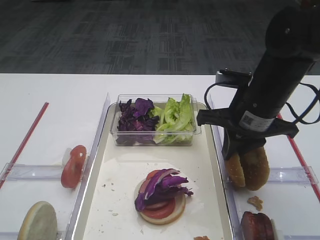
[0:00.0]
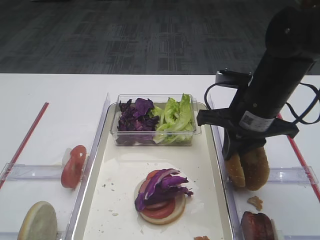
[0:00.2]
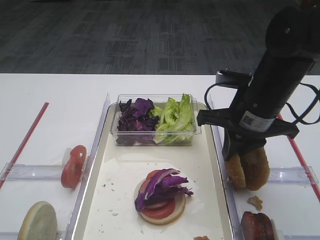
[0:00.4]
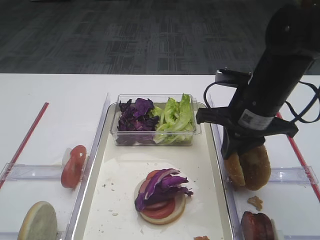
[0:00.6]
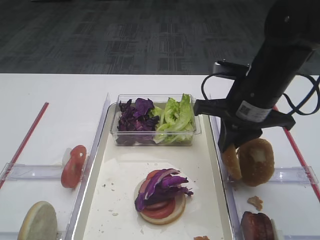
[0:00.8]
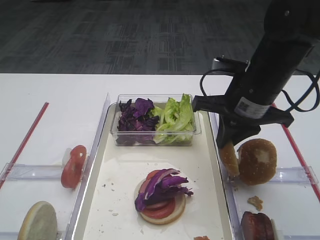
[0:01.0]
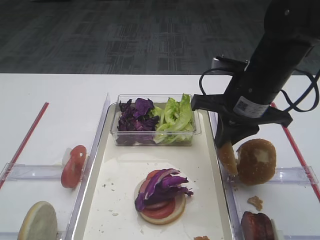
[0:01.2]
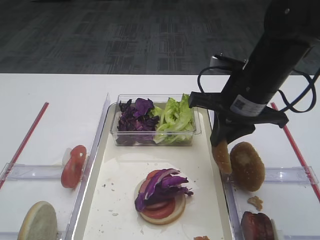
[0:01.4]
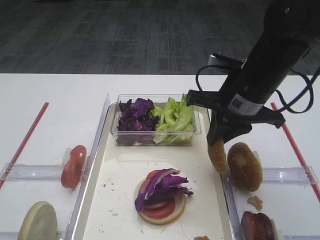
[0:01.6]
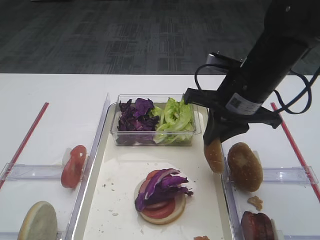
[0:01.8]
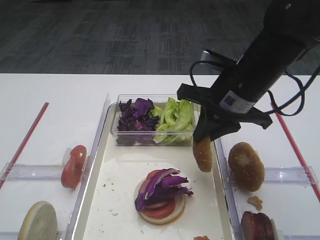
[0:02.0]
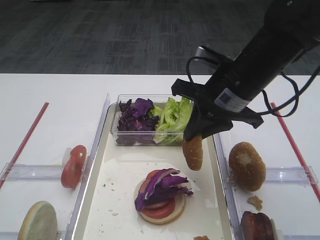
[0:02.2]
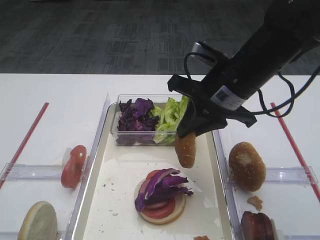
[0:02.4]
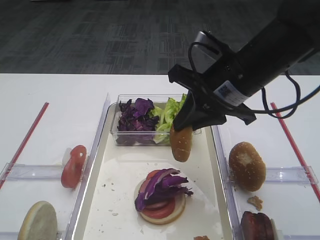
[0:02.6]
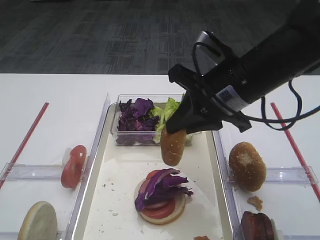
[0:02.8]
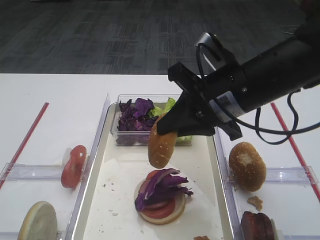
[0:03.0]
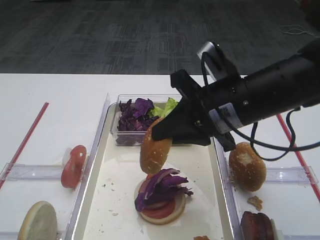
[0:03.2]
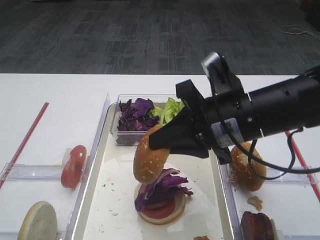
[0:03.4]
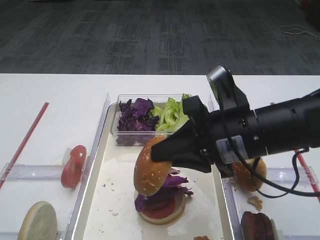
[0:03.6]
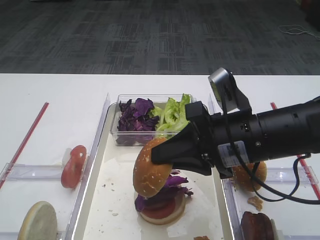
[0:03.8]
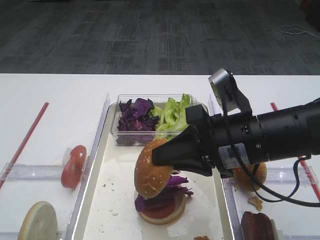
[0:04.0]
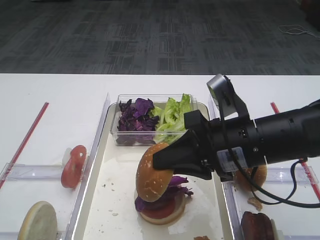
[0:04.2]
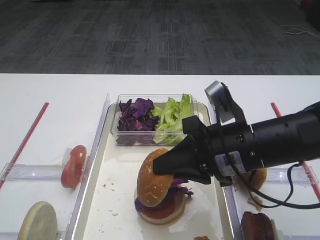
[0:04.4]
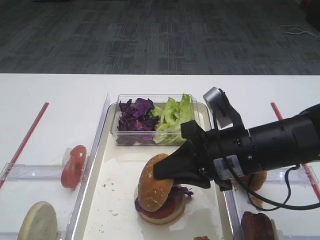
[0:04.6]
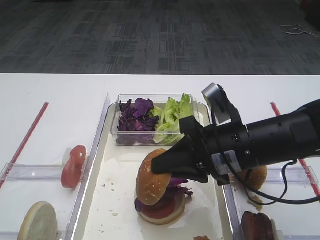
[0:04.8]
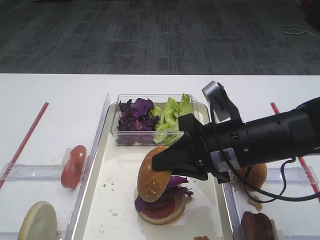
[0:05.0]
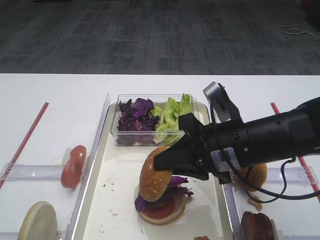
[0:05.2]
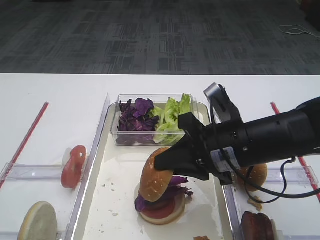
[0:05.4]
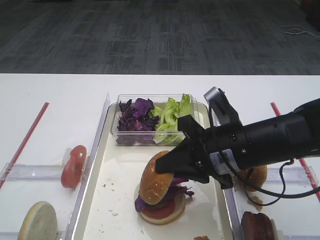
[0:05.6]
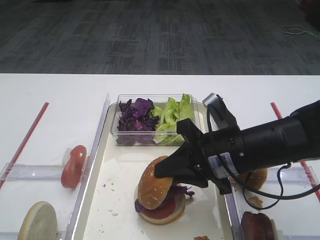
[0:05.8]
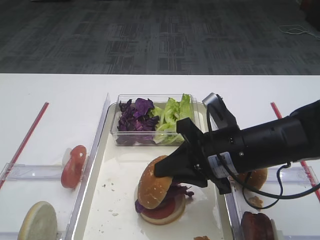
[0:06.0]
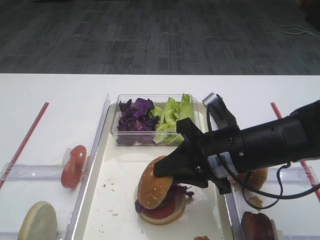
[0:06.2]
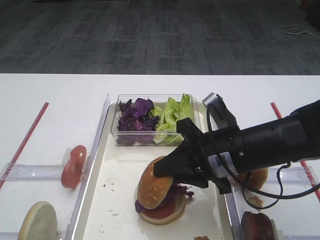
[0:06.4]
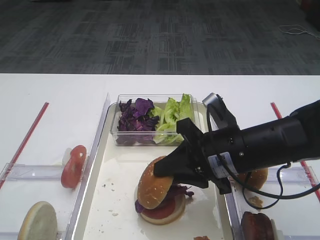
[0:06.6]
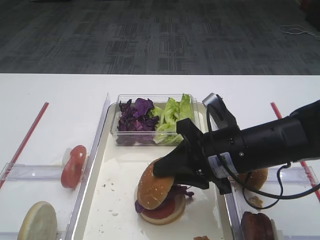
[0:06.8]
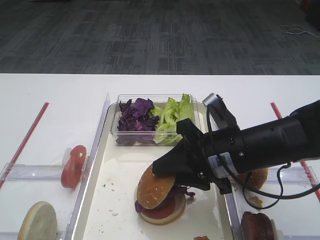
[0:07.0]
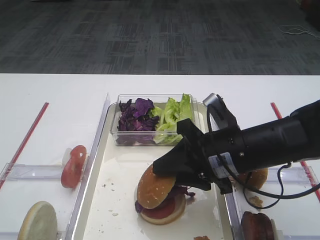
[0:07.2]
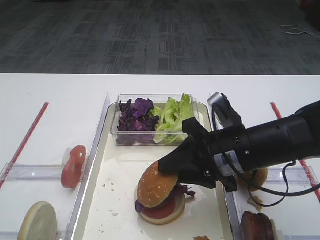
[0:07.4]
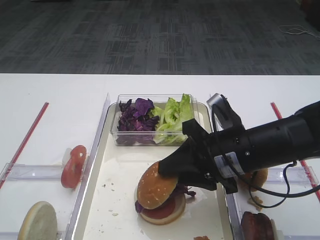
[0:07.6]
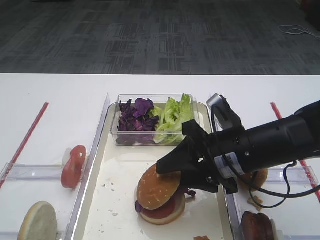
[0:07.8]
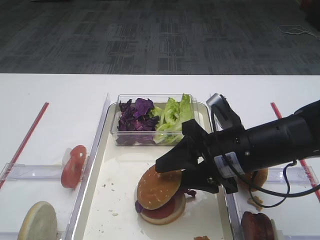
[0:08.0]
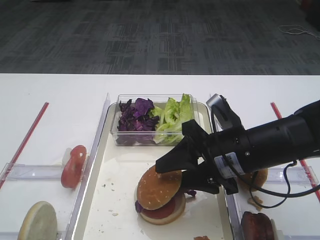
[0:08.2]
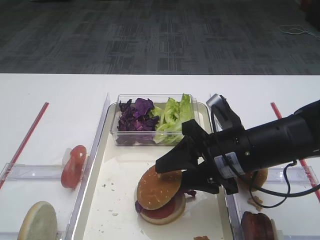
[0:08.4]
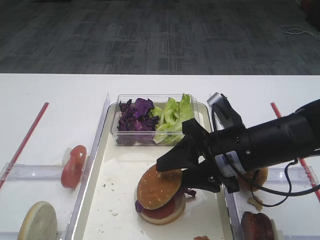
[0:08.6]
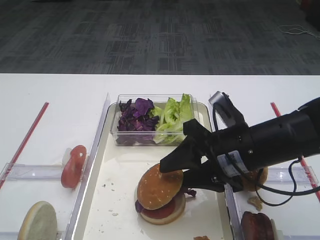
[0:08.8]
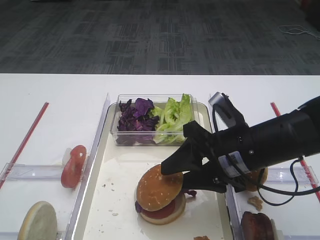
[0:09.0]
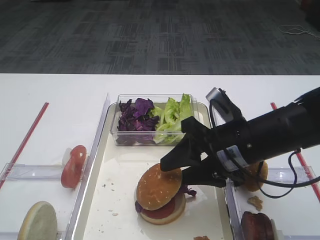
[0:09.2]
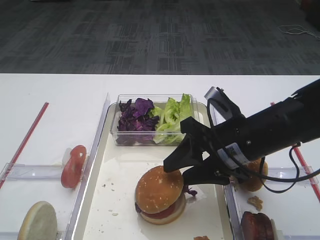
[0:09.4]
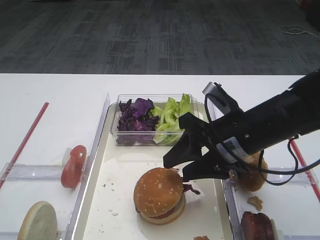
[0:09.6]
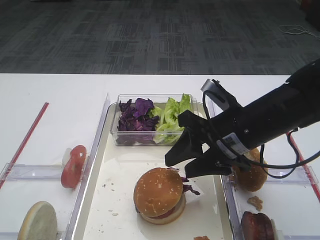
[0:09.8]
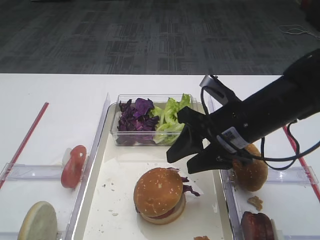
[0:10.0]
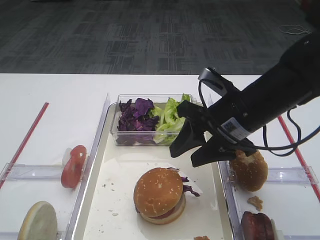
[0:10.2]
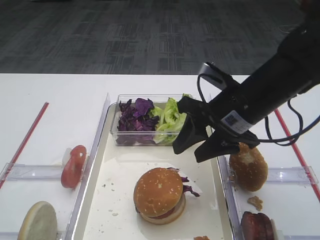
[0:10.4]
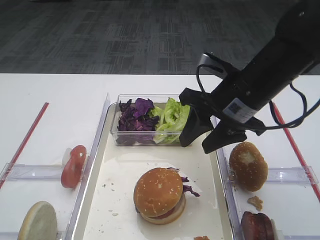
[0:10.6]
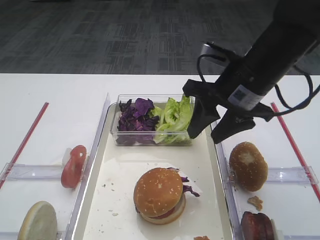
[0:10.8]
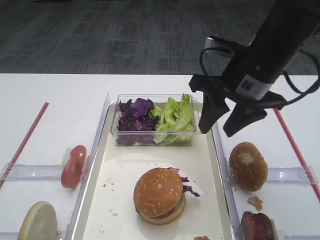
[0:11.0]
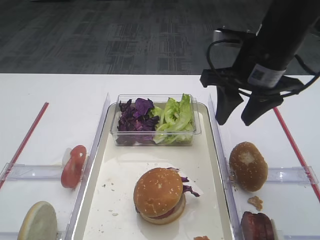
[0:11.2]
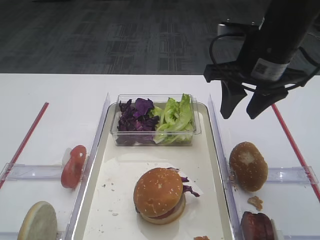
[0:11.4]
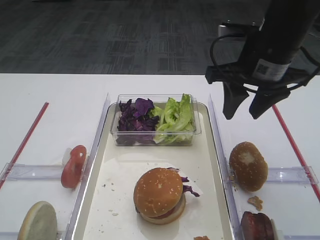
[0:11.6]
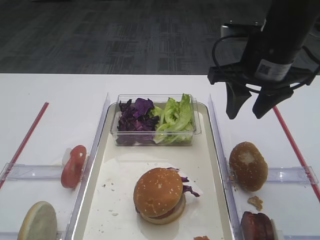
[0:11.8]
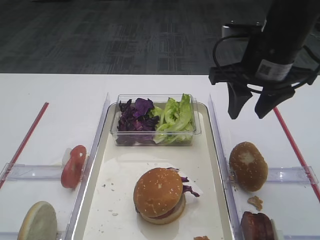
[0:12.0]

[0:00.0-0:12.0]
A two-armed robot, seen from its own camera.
Step, 0:01.8 to 0:10.0: Place the hamburger lid on the purple cabbage with the right gripper.
0:00.0 to 0:01.6: The grippers stay close to where they were, moving slightly.
0:01.6 to 0:03.0: The right gripper moves about 5 cm.
0:03.0 to 0:04.4: The right gripper is displaced downward by about 5 cm.
0:04.4 to 0:06.0: The grippers stay close to where they were, moving slightly.
0:06.0 to 0:07.6: The two grippers keep their place.
0:07.6 to 0:09.0: Both grippers stay about where they are.
0:09.0 to 0:10.4: The right gripper moves approximately 5 cm.
0:10.4 to 0:12.0: The right gripper travels upward by some 5 cm.

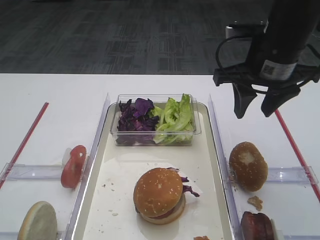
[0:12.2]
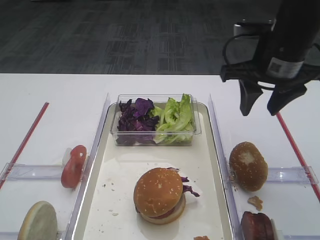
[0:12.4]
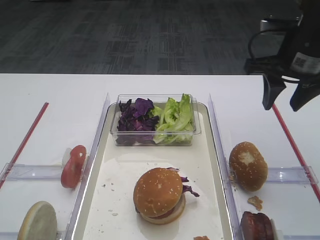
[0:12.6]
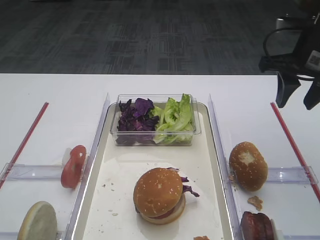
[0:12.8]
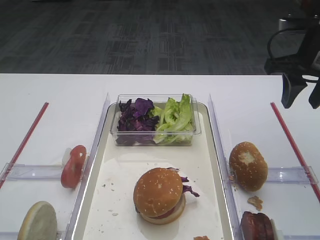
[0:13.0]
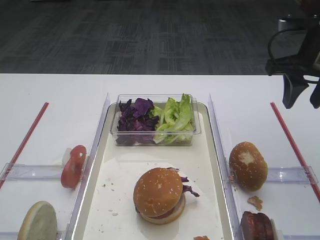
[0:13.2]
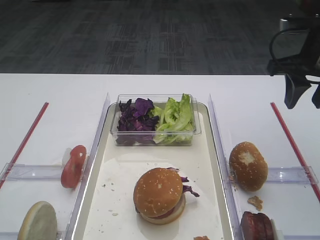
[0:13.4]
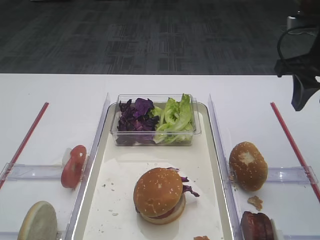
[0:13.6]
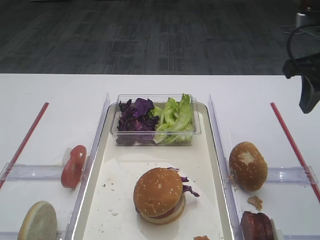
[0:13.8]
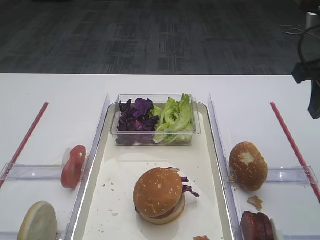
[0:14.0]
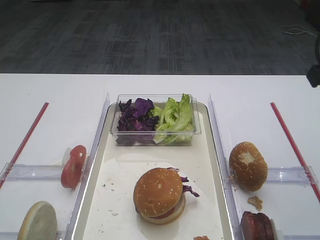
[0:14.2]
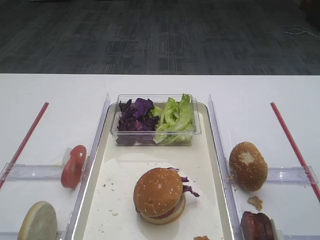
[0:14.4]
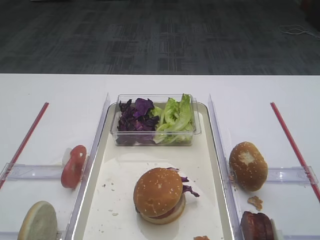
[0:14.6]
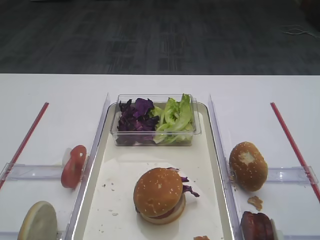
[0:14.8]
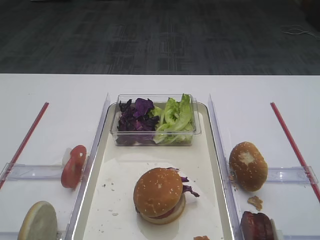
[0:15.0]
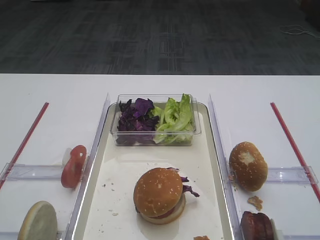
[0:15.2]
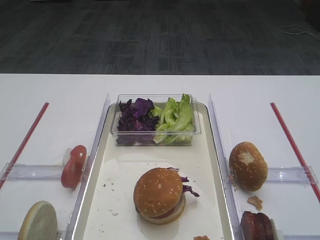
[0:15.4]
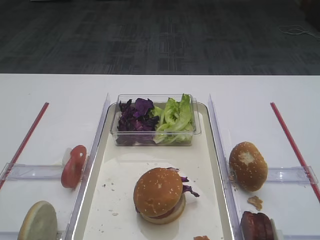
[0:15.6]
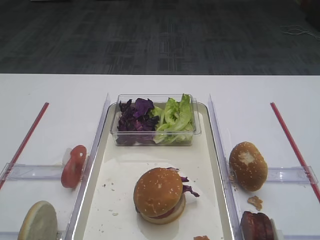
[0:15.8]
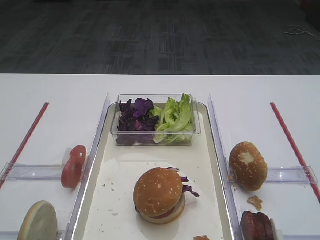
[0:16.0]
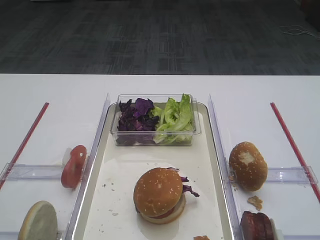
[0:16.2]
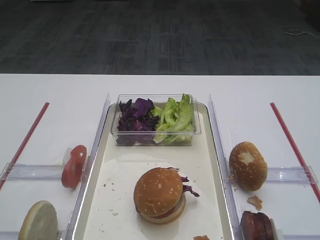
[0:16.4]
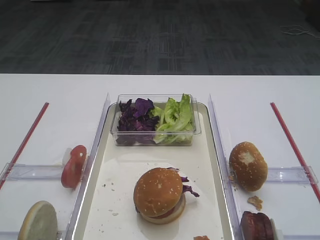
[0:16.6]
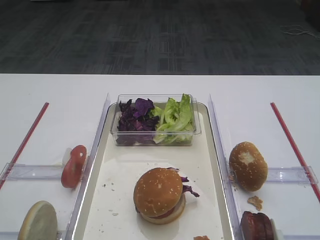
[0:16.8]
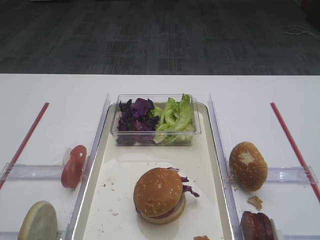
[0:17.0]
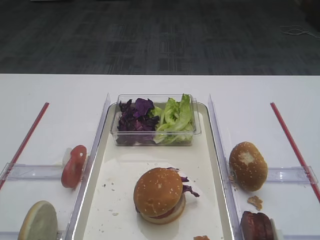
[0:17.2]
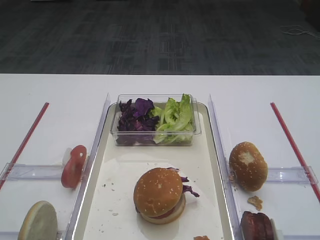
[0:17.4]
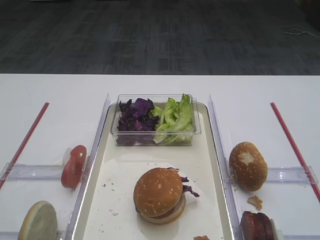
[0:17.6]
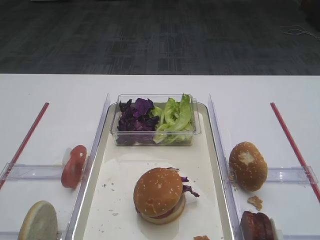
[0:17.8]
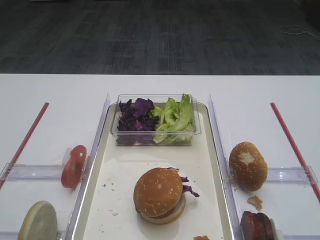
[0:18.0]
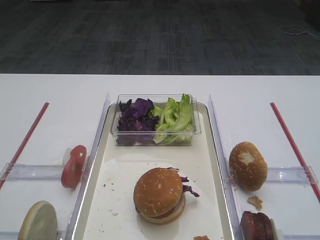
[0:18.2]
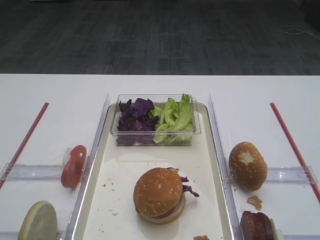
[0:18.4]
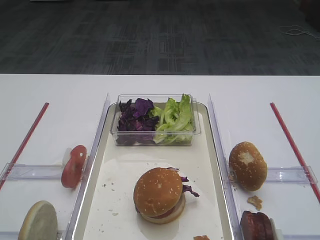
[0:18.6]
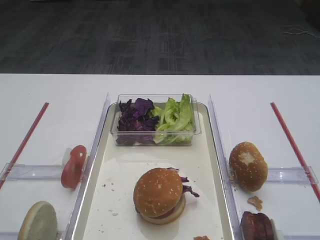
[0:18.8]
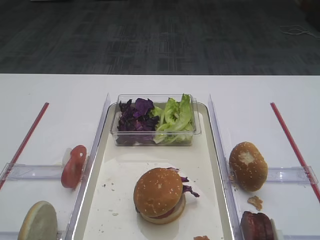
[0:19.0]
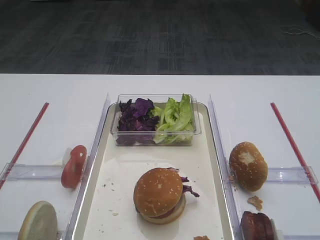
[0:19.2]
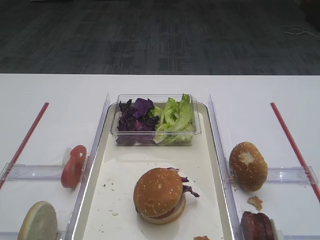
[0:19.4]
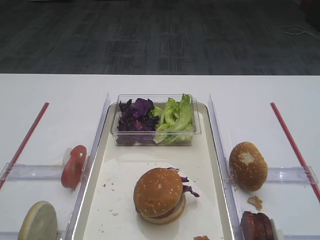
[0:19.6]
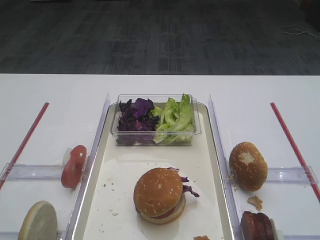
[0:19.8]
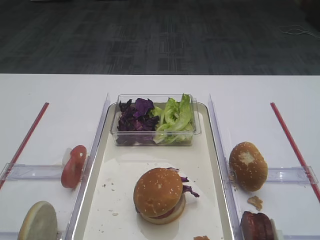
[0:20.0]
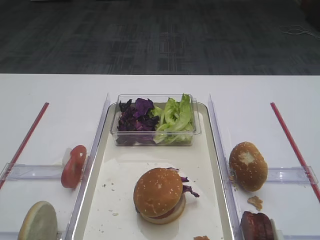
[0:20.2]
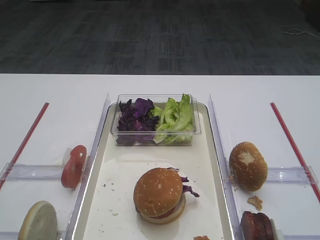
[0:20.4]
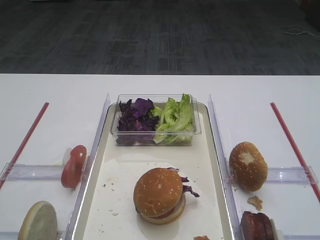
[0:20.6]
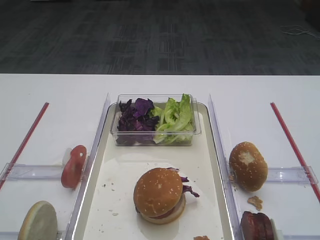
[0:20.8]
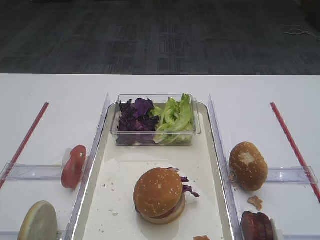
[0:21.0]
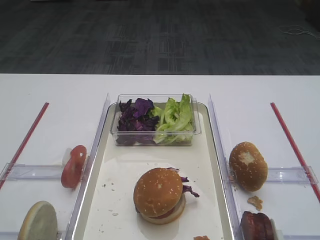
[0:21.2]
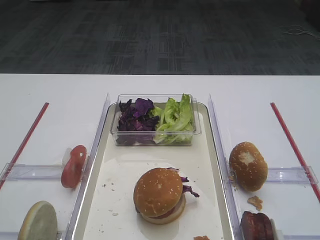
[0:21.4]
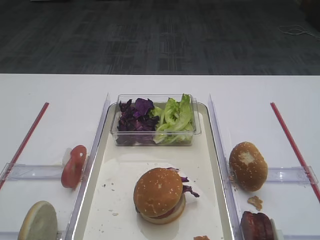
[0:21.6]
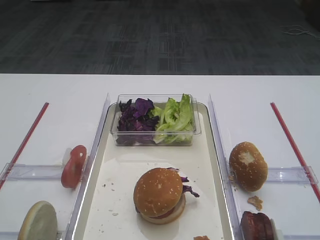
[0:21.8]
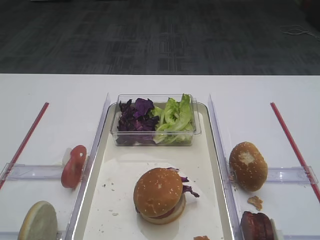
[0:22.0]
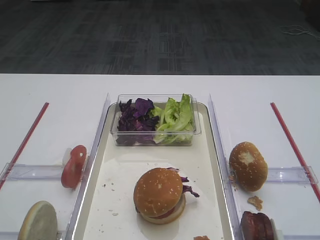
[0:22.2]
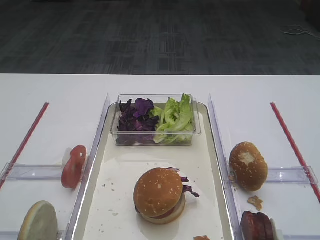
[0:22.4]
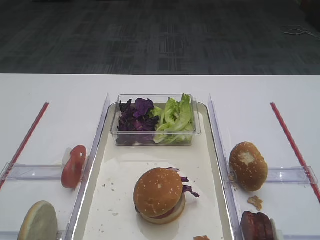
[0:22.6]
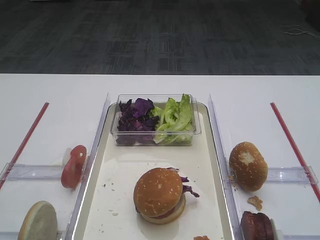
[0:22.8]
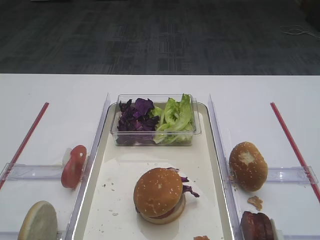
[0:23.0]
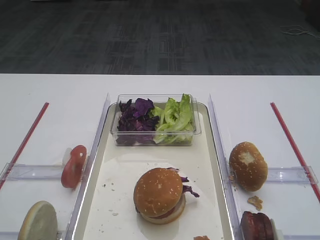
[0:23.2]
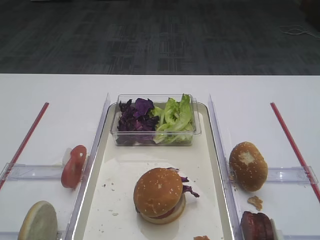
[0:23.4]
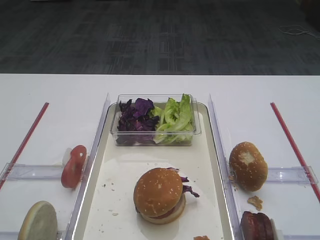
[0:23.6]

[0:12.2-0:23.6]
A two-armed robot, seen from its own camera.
0:12.2 to 0:13.6: The right gripper travels to the right by about 10 cm.
0:13.6 to 0:15.0: The right gripper shifts approximately 20 cm backward.
0:17.8 to 0:19.4: Both grippers stay put.
0:20.8 to 0:23.6: Both grippers stay about where they are.
